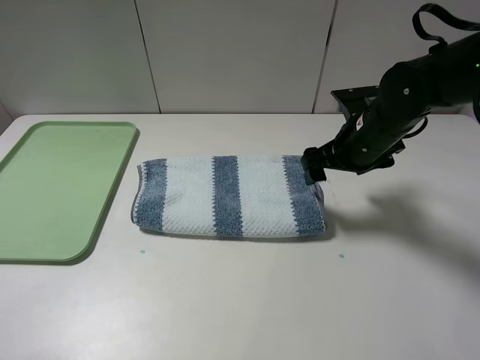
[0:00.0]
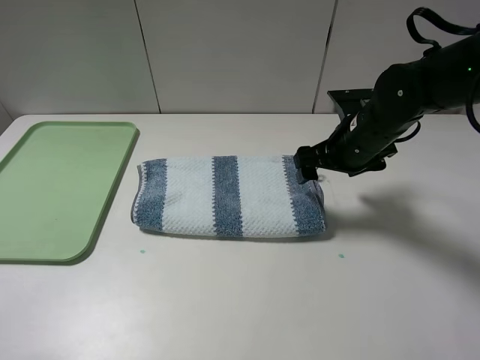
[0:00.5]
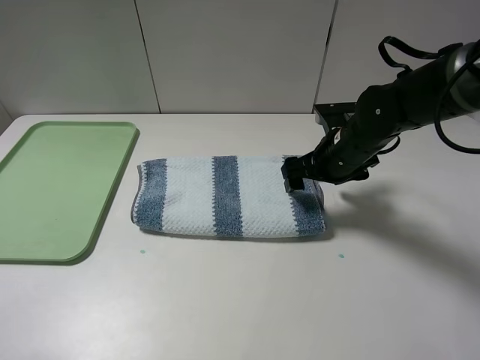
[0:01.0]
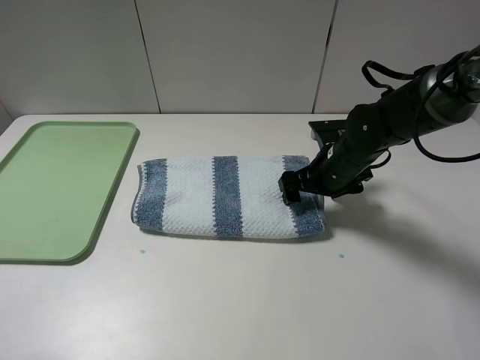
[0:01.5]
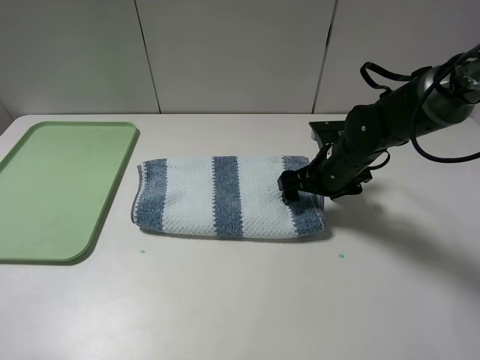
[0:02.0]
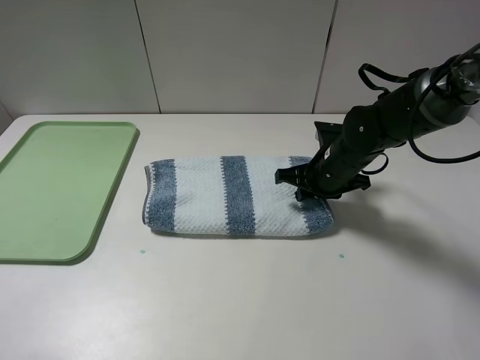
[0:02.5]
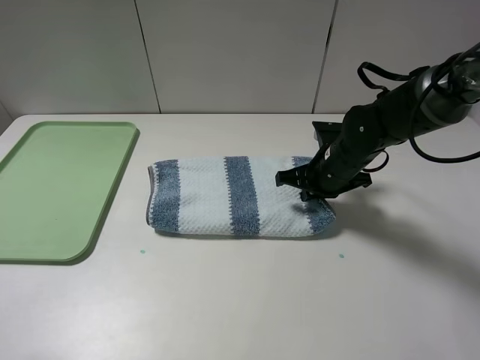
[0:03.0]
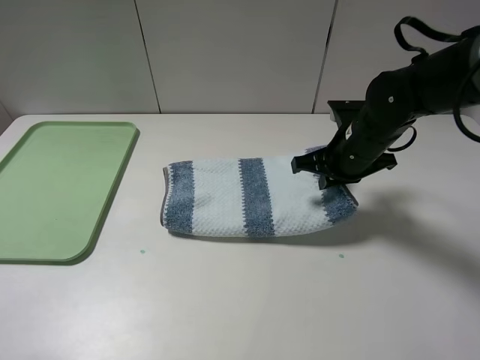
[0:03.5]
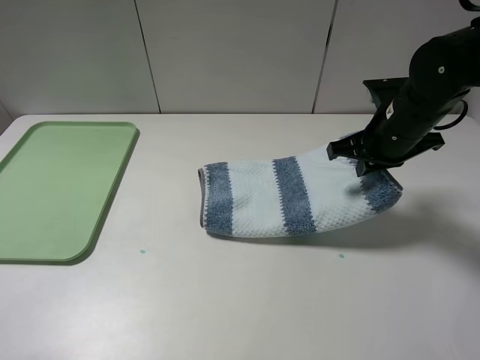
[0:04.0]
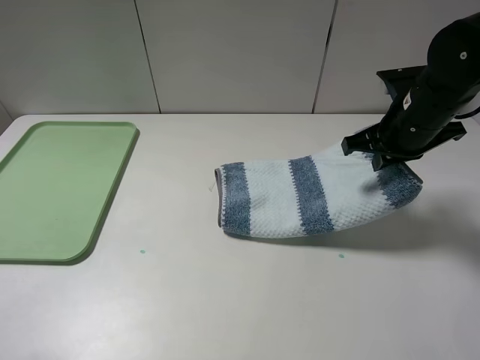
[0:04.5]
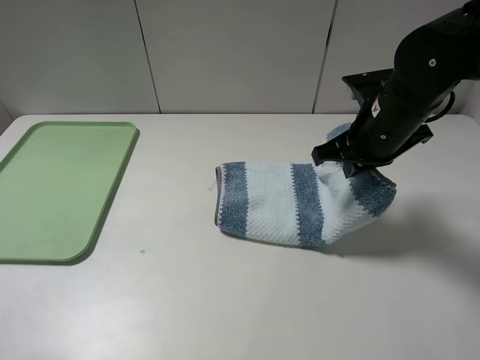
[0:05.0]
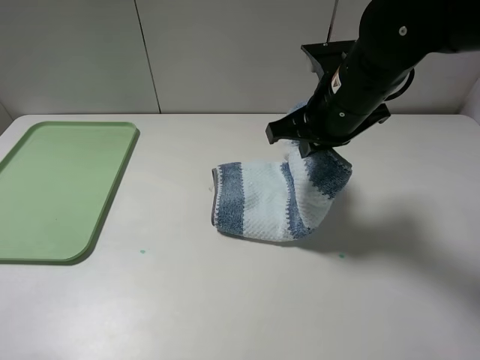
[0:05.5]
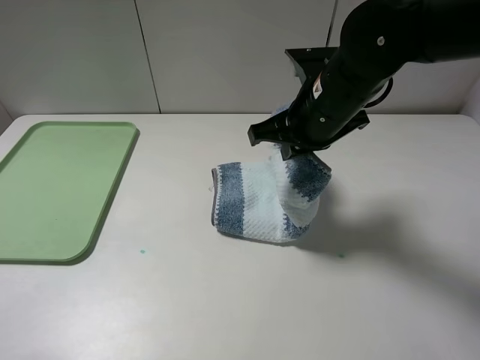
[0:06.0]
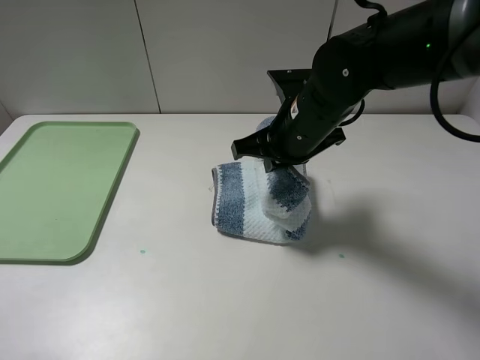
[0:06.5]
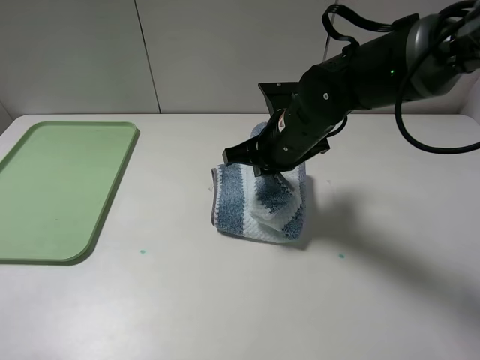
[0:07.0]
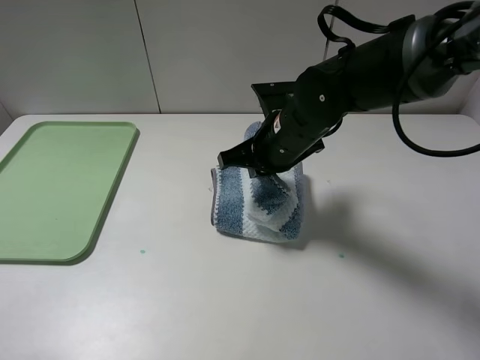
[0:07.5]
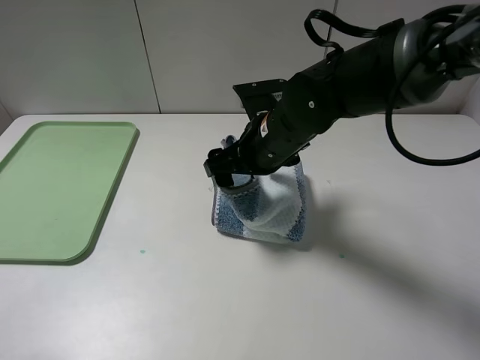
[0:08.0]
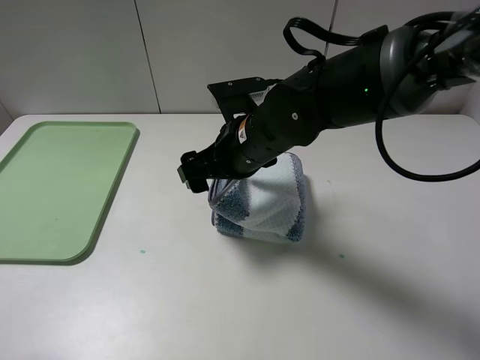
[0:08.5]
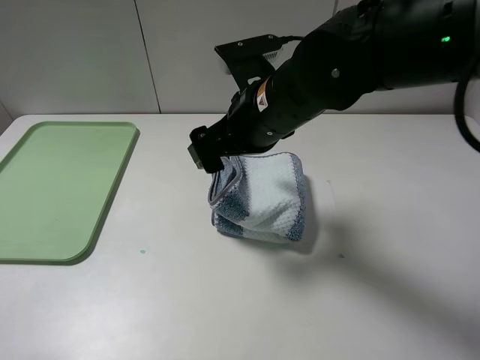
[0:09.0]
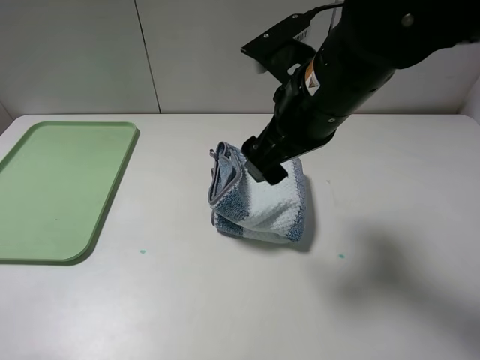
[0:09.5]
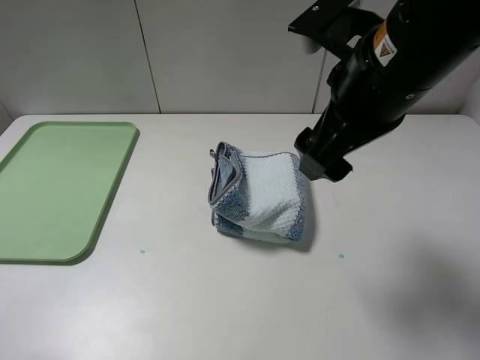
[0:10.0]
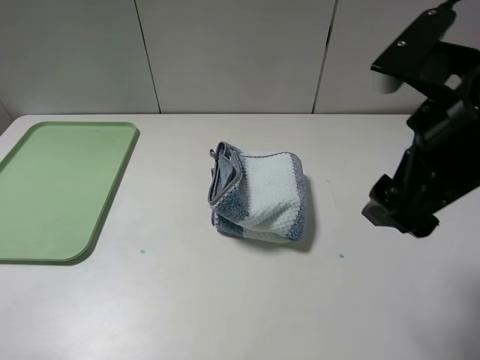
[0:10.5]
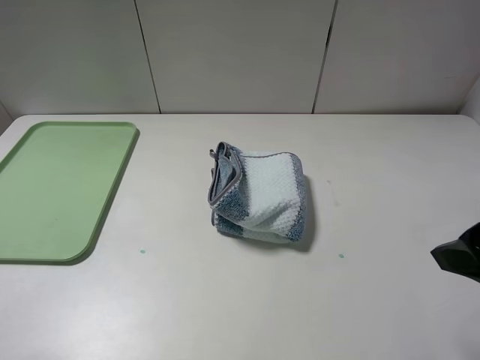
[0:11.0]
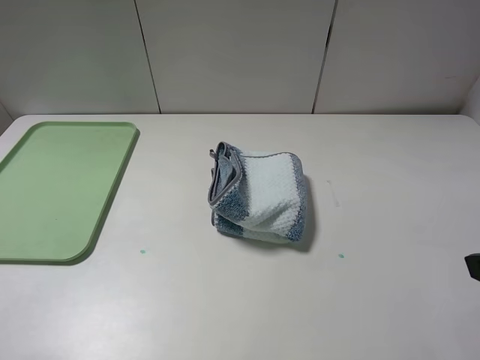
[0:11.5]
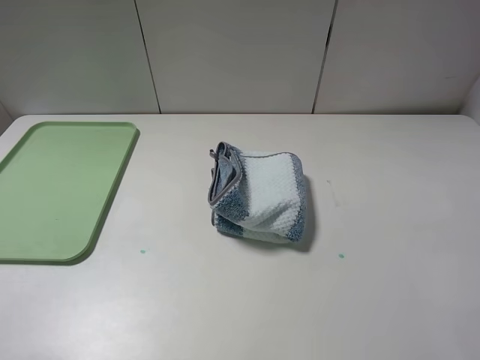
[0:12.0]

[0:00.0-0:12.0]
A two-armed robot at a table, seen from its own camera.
Step, 0:00.0 to 0:02.5: Grasp the blue white towel with the right gripper.
Step, 0:03.0 to 0:10.5: Fold the blue white towel from right to left with right gripper.
0:00.0 to 0:02.0: The right gripper goes some 5 cm downward.
0:02.0 to 0:04.0: The right gripper is displaced upward and to the right by approximately 10 cm, and closes up.
0:04.0 to 0:06.0: The right gripper shifts about 10 cm to the left.
0:06.0 to 0:08.0: The right gripper is displaced to the left and downward by roughly 5 cm, and opens up.
0:08.0 to 0:10.0: The right gripper moves upward, backward and to the right, some 15 cm.
0:10.0 to 0:12.0: The right gripper shifts about 25 cm to the right and backward.

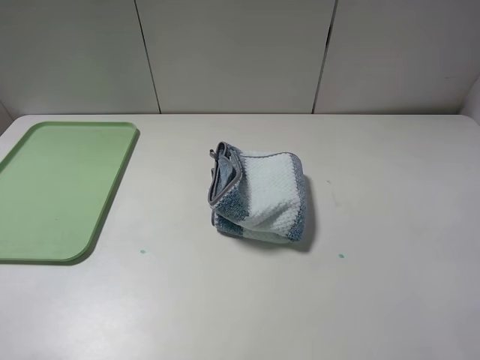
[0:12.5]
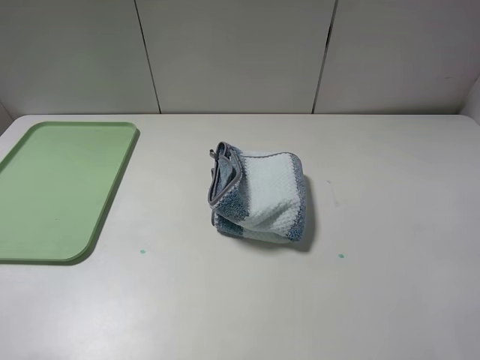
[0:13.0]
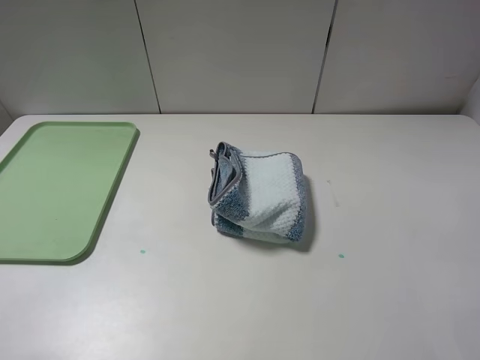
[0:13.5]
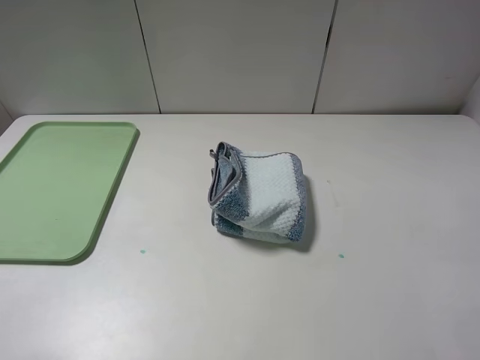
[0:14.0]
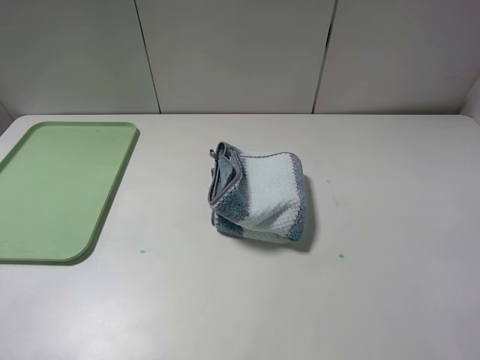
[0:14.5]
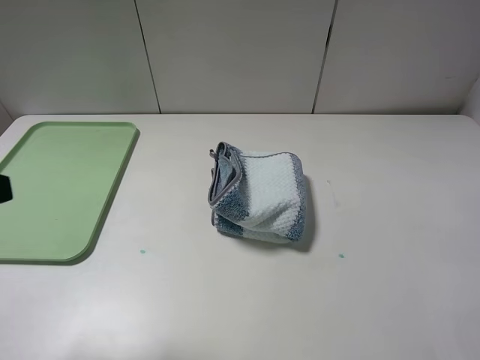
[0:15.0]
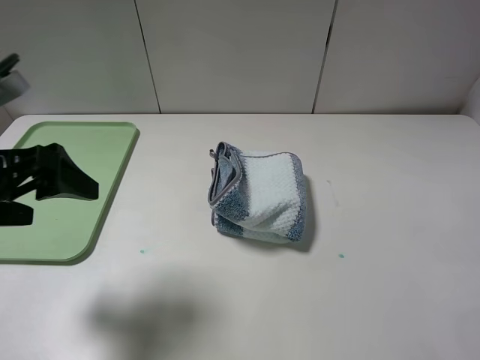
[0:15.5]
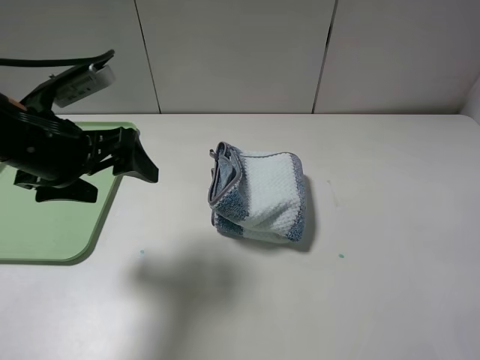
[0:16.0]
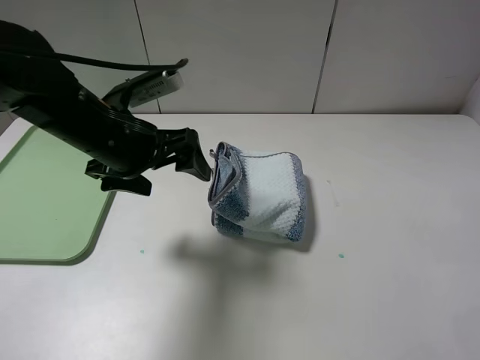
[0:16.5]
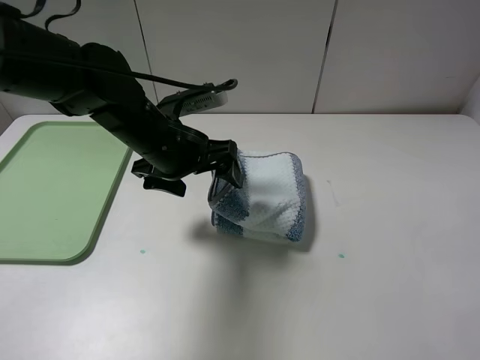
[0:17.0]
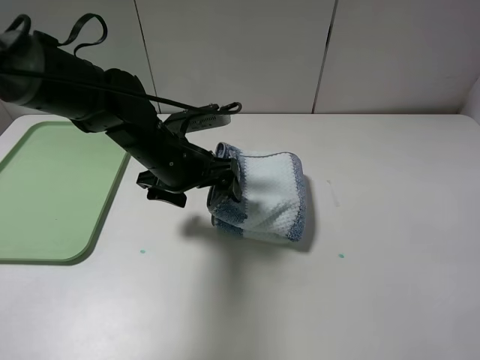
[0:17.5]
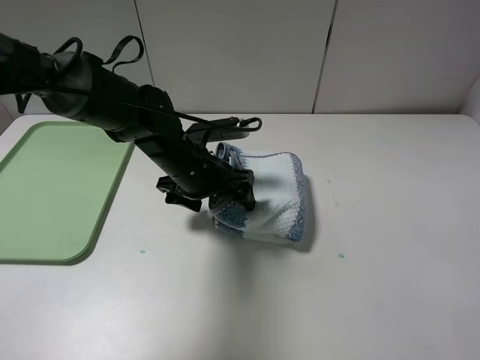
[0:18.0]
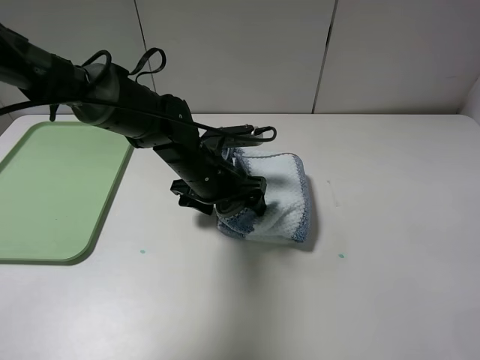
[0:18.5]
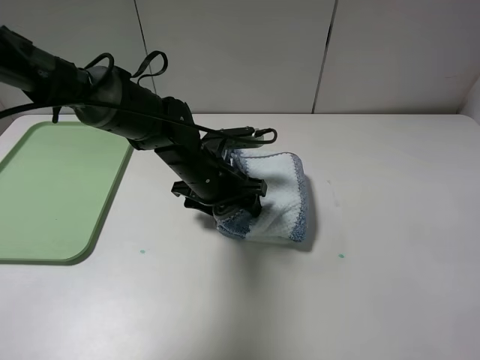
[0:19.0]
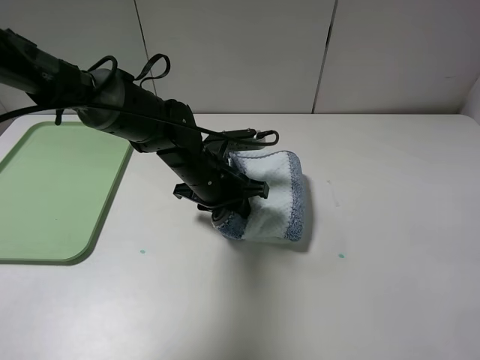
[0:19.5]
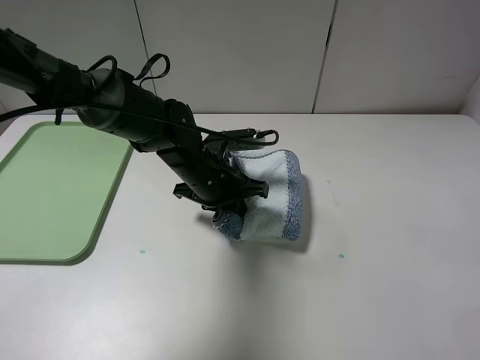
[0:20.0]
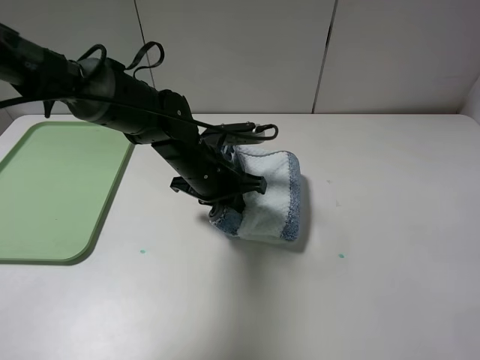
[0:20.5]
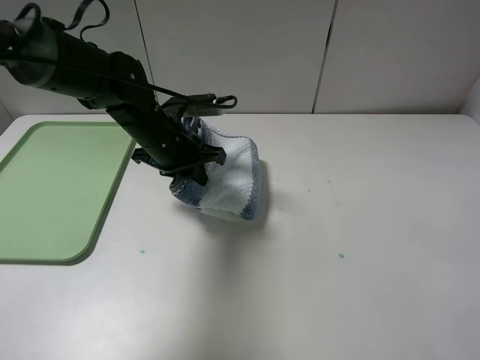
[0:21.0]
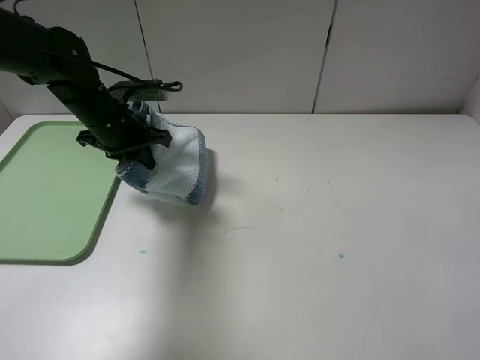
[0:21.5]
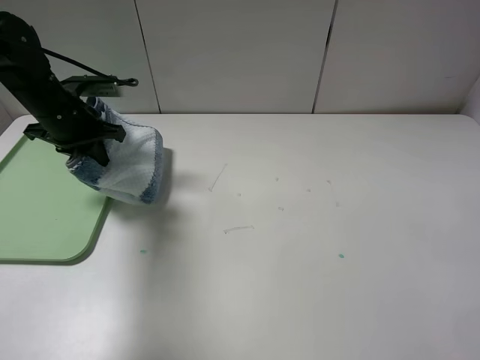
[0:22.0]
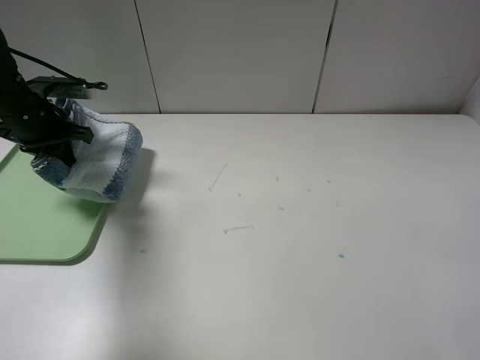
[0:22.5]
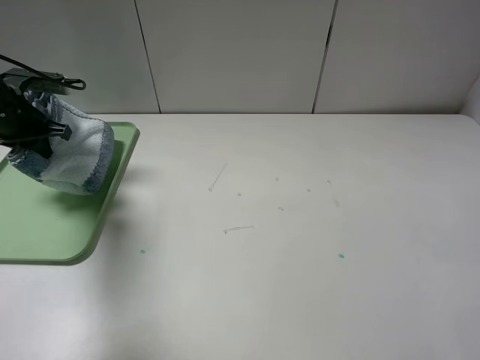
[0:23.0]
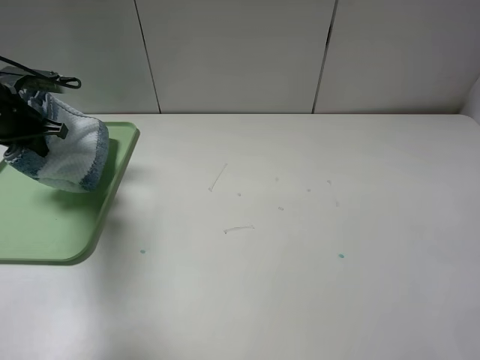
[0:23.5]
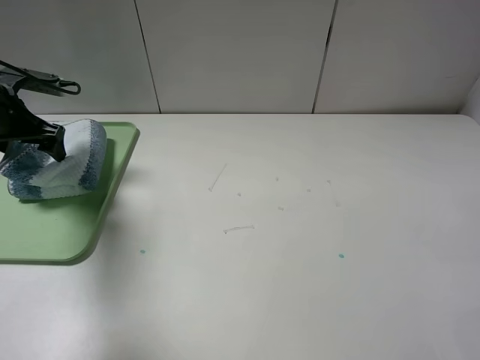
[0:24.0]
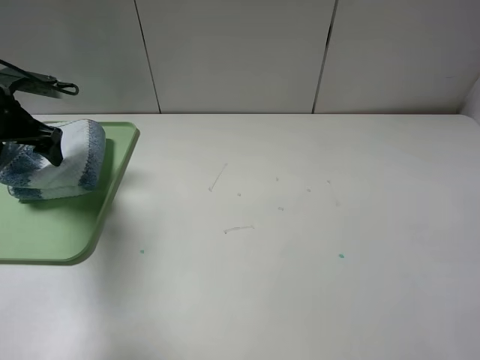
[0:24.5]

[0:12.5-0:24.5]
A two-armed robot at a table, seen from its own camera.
Step, 0:12.5 to 0:20.0: Grasp the blue white towel with the left gripper.
0:14.5 to 0:16.5: The left gripper goes roughly 30 cm forward and to the right.
0:16.5 to 0:18.5: The left gripper shifts about 15 cm downward and to the right.
0:18.5 to 0:20.5: The left gripper closes.
0:20.5 to 0:22.5: The left gripper is displaced to the left by roughly 25 cm.
0:22.5 to 0:24.5: The left gripper opens its fingers.

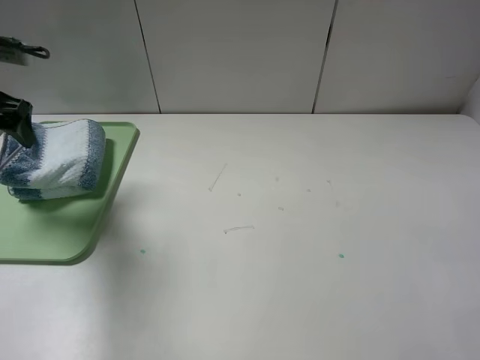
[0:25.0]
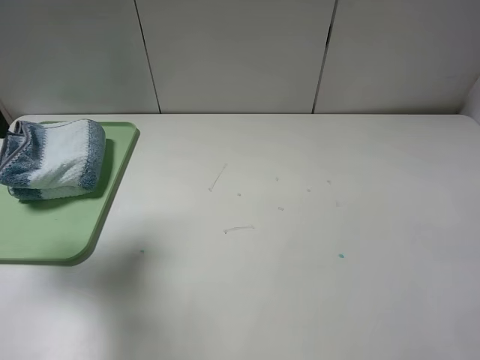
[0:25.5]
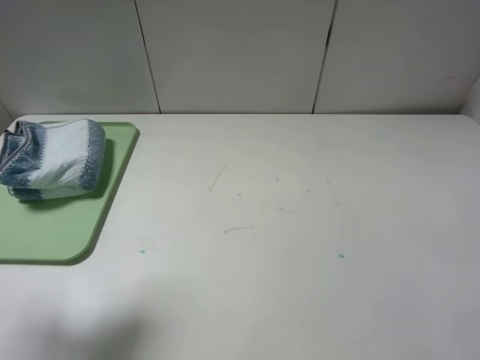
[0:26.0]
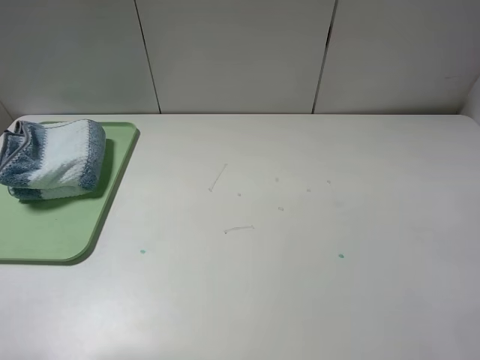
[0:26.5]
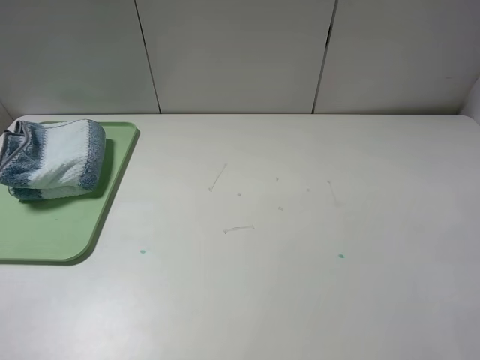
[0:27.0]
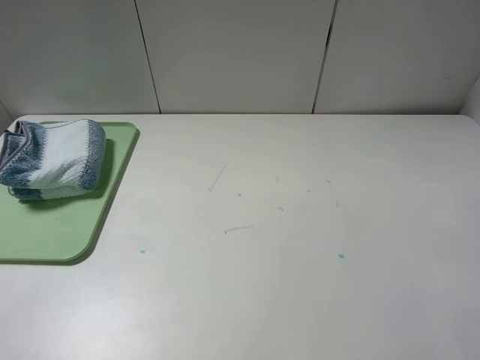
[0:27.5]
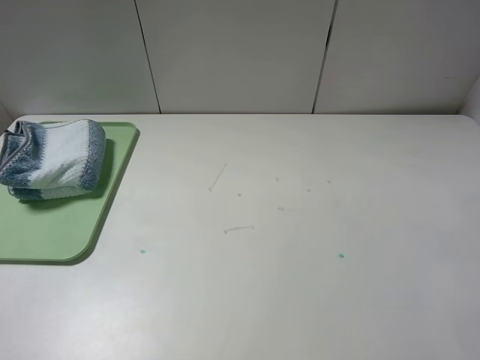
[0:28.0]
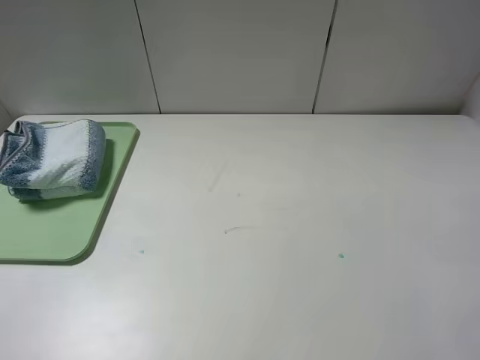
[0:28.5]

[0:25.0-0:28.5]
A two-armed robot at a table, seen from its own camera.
0:25.0 to 0:27.0: The left gripper heads backward, covering some 35 cm.
